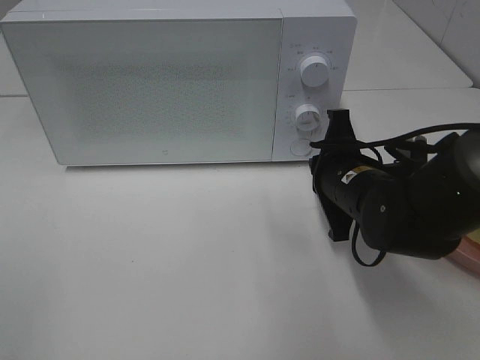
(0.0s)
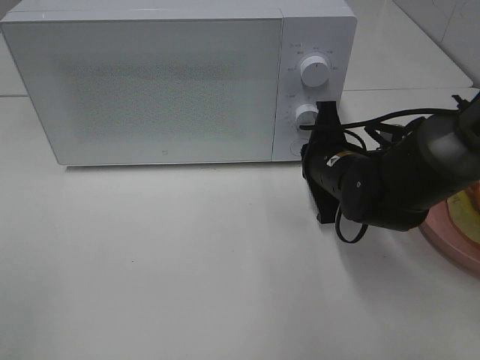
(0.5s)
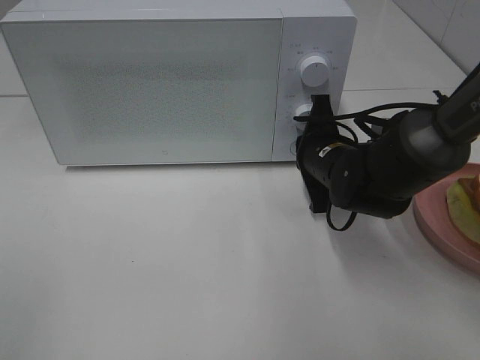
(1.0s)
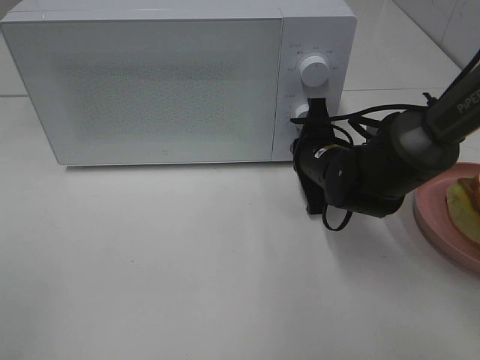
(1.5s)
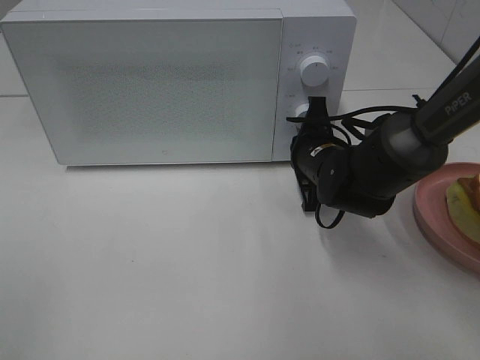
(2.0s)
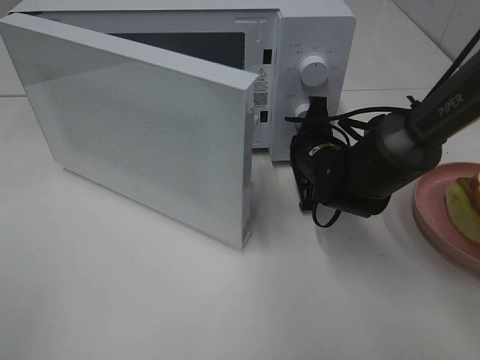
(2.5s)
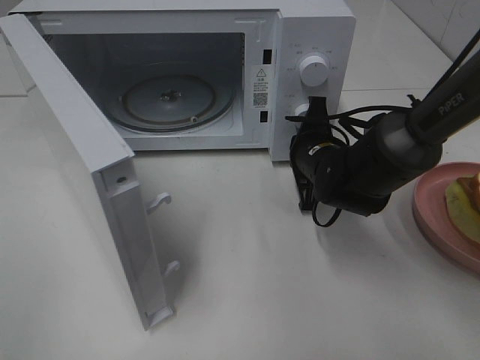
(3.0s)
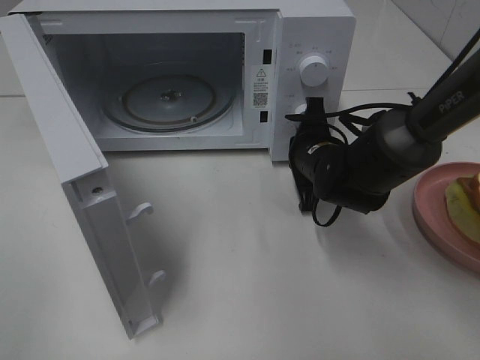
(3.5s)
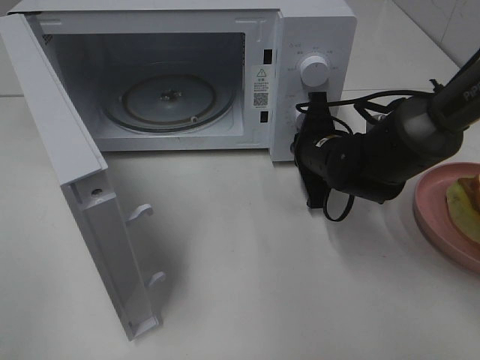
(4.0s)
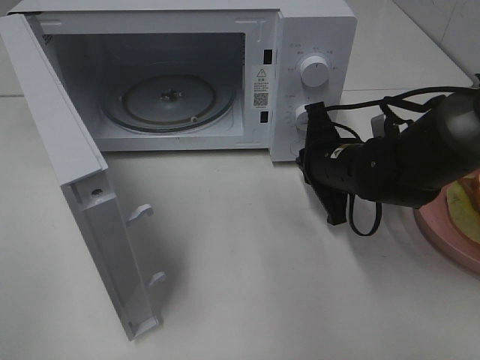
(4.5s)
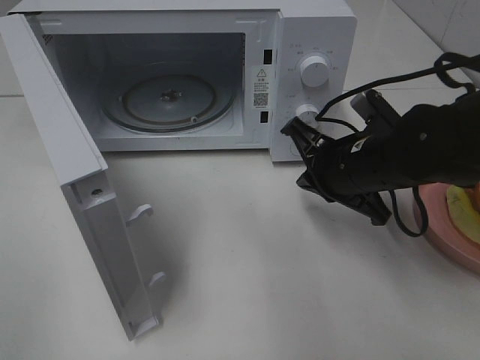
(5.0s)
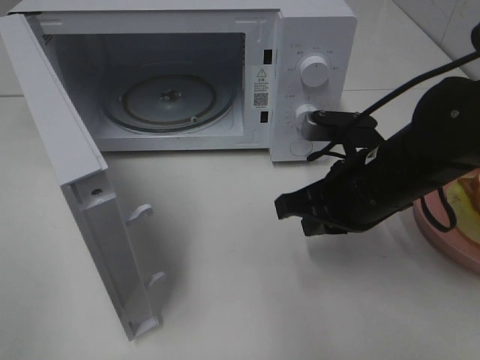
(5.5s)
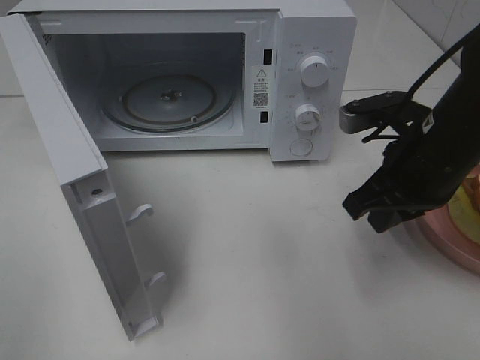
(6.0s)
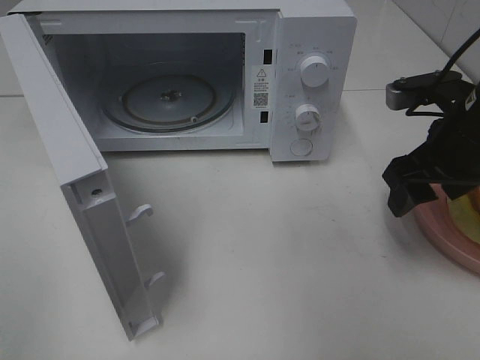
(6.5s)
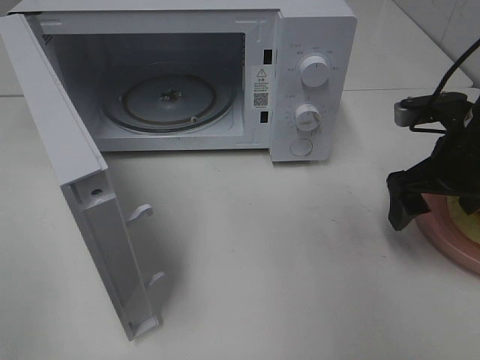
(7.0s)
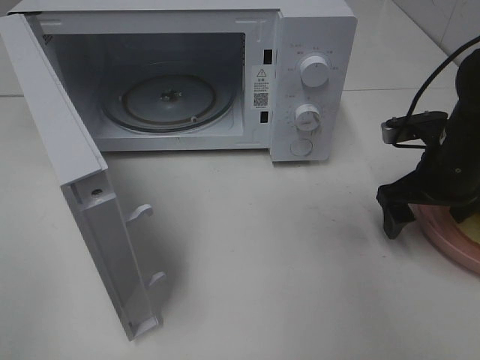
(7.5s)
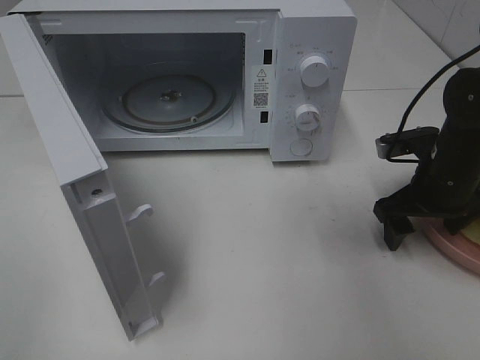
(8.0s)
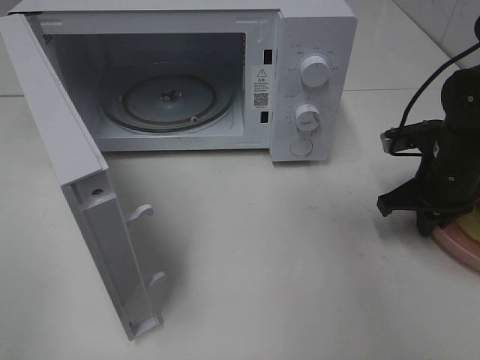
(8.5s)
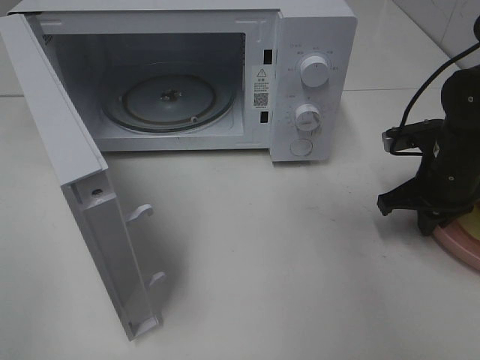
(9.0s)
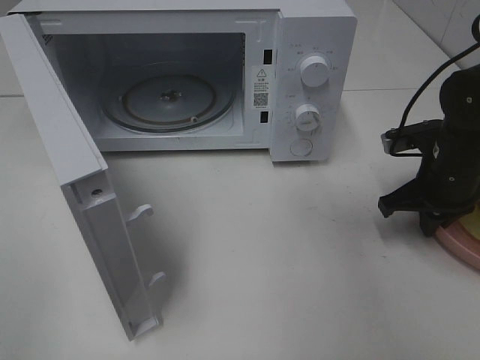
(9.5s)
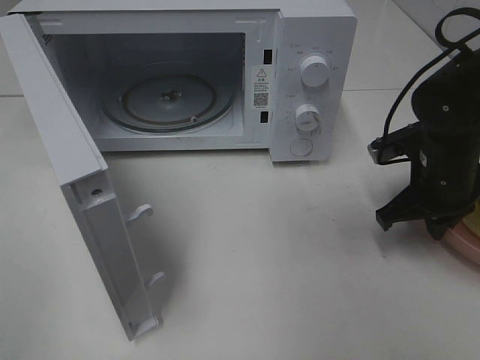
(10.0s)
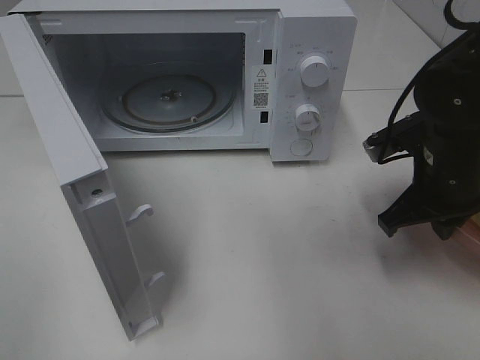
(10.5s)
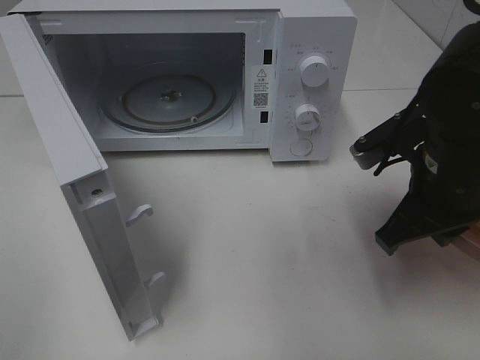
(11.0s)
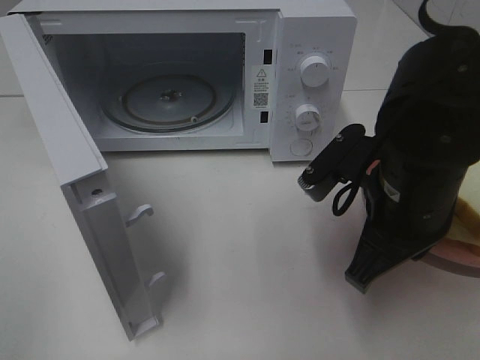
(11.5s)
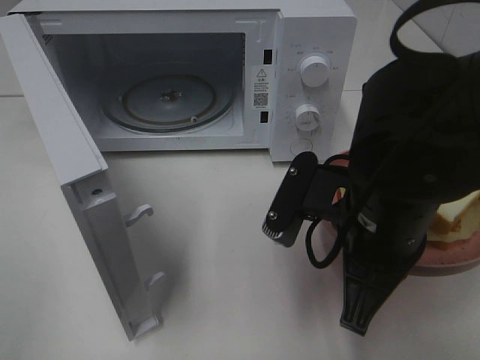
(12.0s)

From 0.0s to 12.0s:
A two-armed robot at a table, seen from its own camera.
Task of the whole recording: Heat Sandwich.
Step, from 0.0s to 4.0s: Right hand: press the switch.
Step, from 4.5s to 8.5s: Right hand: grab the plate with the sandwich.
From 0.0s to 2.0s: The right gripper heads forward, covering some 5 cm.
From 4.0s to 6.0s: The right gripper goes about 15 cm backward, upward and to the right.
From 6.0s to 8.0s: The right gripper shifts approximately 10 cm downward, to the right and forward, and opens up.
From 8.0s to 10.0s: The right gripper closes.
From 10.0s to 12.0s: The right gripper goes roughly 20 cm to the left, backward and upward.

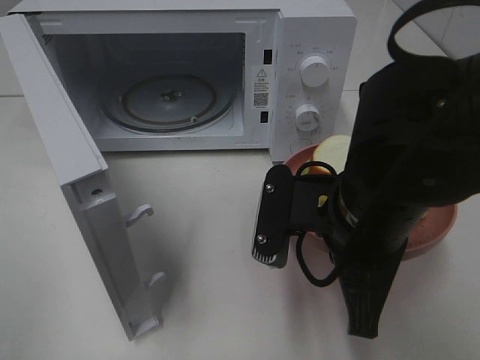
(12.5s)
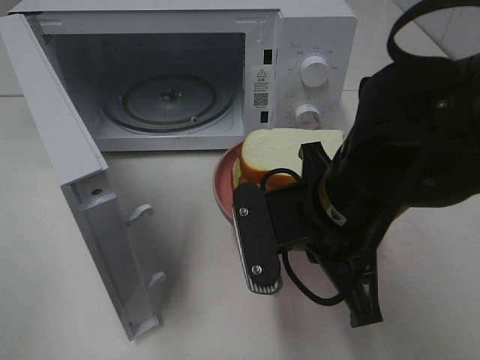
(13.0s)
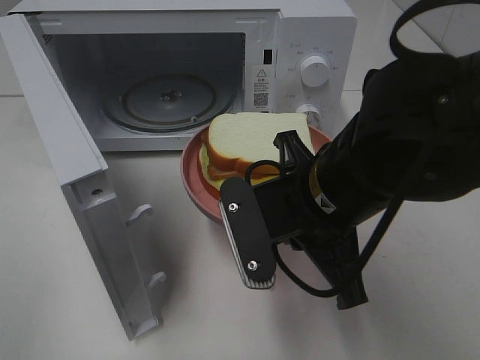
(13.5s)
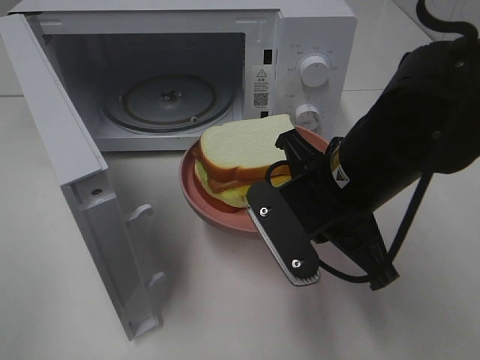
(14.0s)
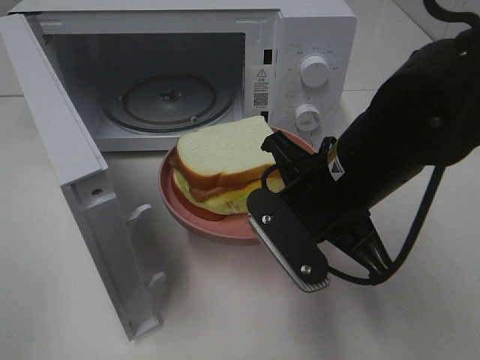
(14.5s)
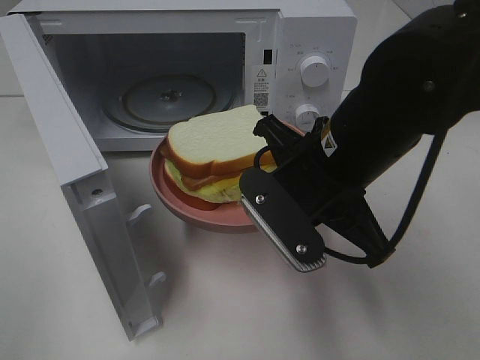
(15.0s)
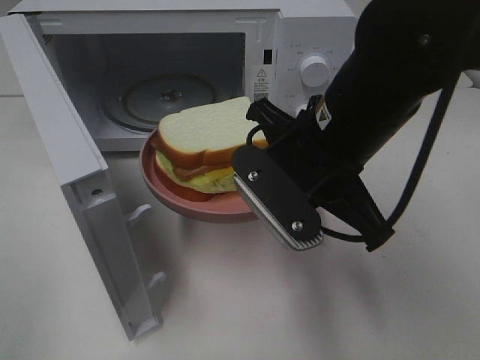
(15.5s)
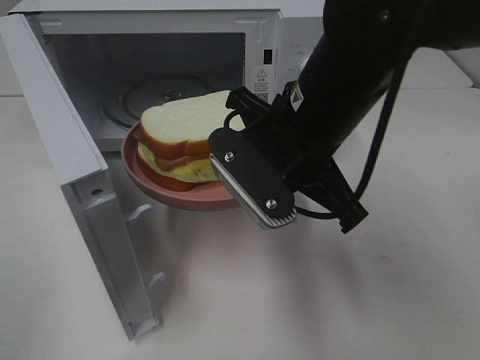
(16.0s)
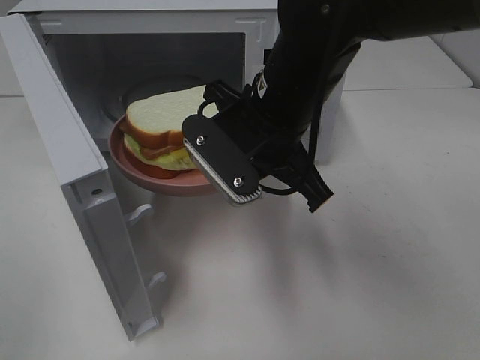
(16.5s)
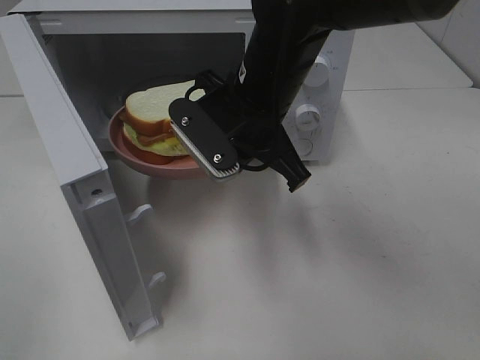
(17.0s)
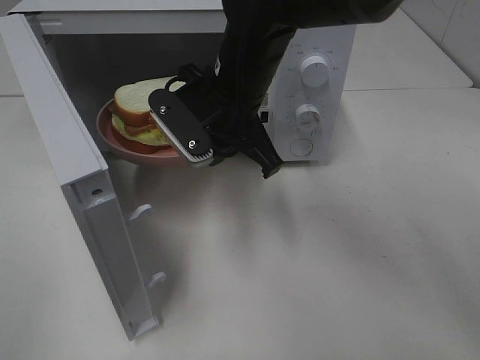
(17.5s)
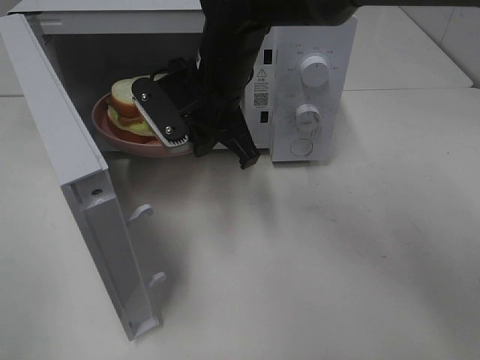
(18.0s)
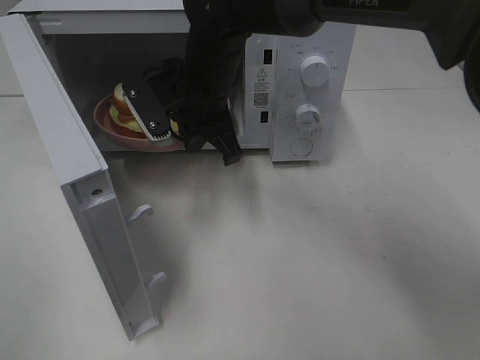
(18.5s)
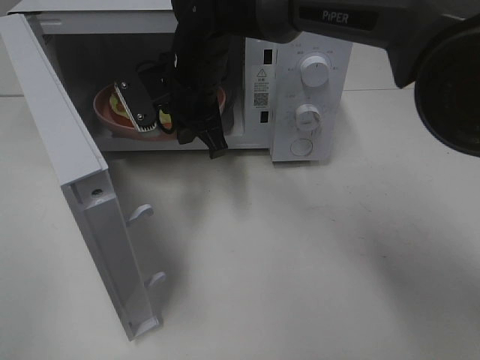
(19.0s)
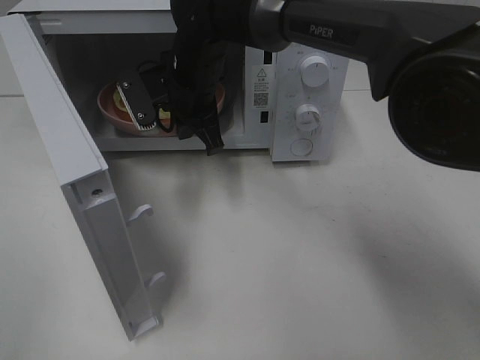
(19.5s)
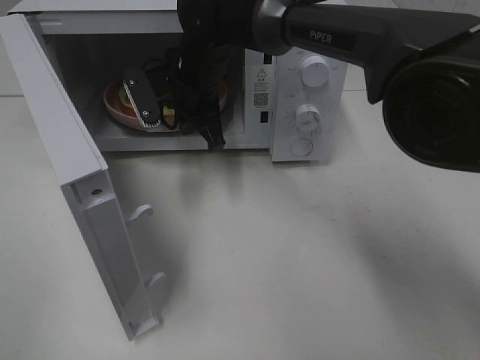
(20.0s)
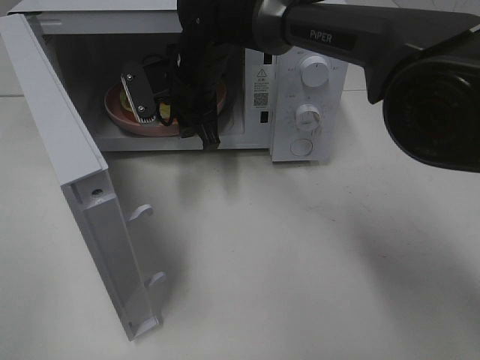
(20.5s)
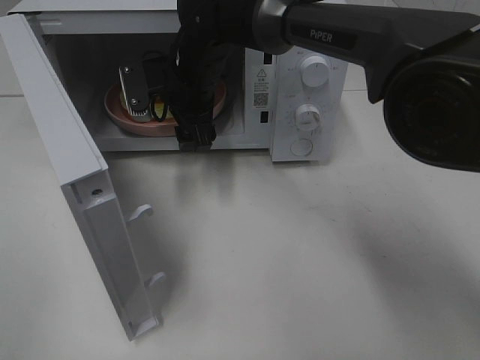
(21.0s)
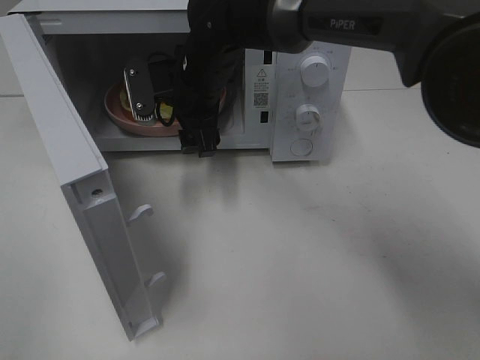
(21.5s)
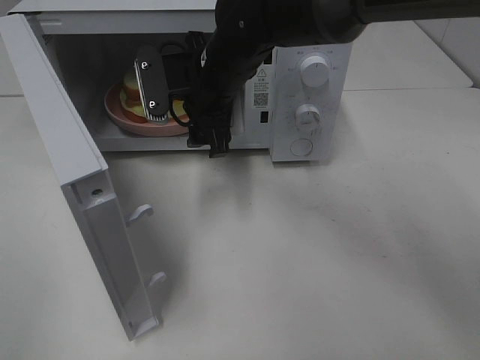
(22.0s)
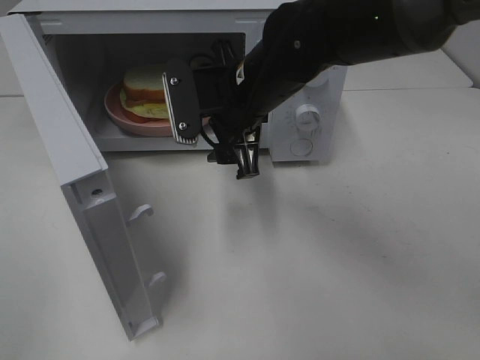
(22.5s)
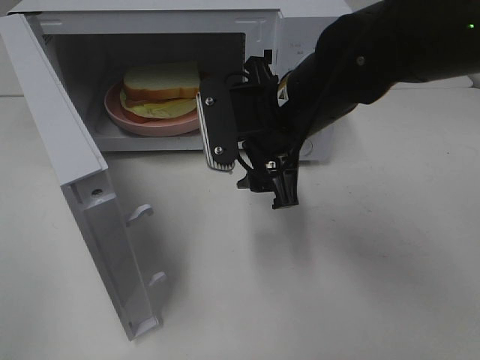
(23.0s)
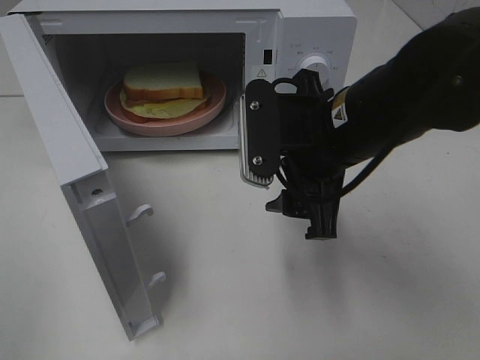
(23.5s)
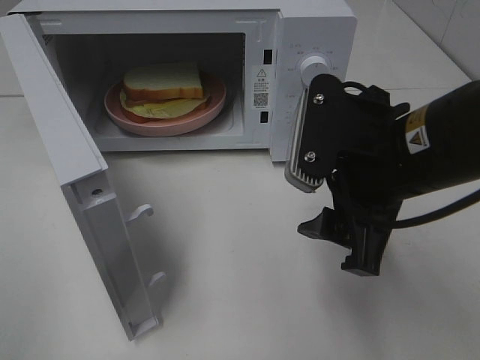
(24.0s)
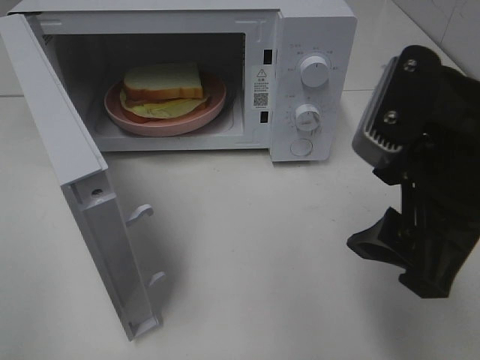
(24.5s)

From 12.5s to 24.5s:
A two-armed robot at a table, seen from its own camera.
Task of the whole recording: Heat Sandwich.
Step, from 12.5s to 21.5s: Right hand: place the plate in the microwave.
From 14.5s to 16.5s: The right gripper heads forward and to the left, covering some 10 cm.
From 16.5s to 18.5s: The right gripper moves forward and to the left, about 10 cm.
From 18.5s to 20.5s: The right gripper changes place by about 5 cm, and opens its fingers.
From 20.5s to 22.5s: The right gripper shifts about 10 cm backward and to the right, and opens its fingers.
From 22.5s to 24.5s: The right gripper travels backward and to the right by approximately 25 cm.

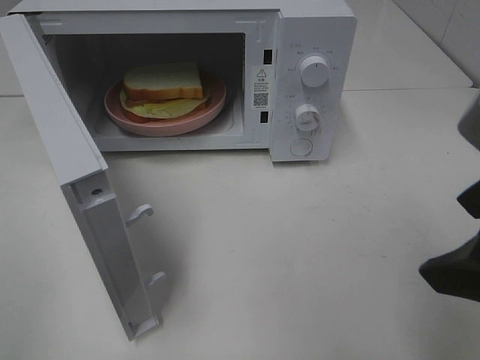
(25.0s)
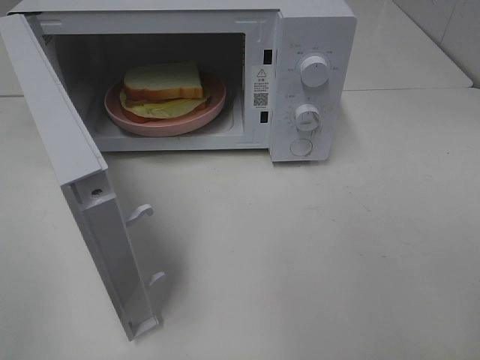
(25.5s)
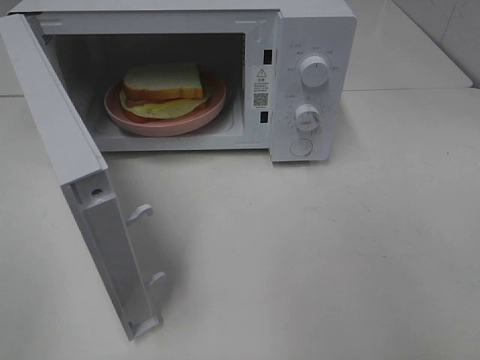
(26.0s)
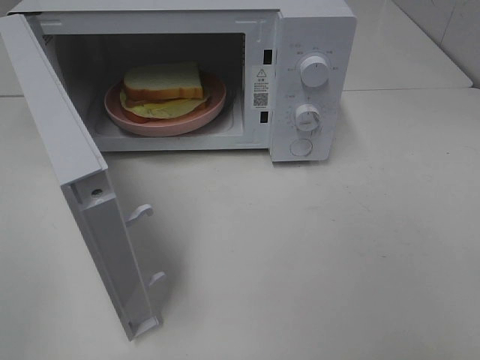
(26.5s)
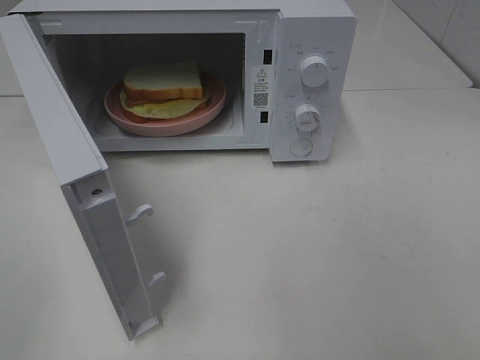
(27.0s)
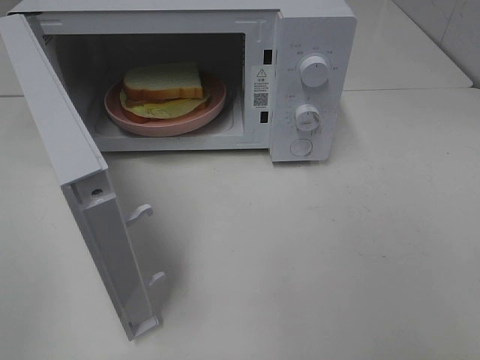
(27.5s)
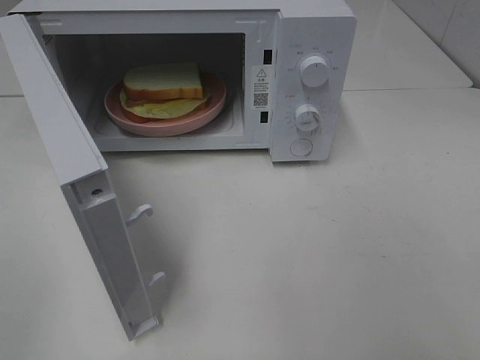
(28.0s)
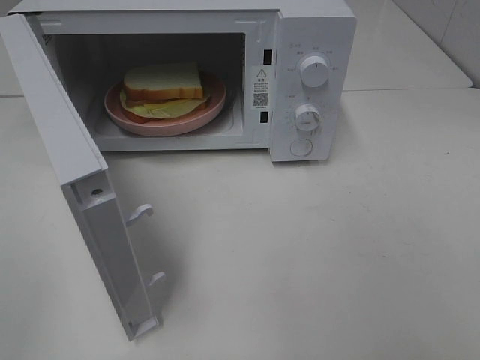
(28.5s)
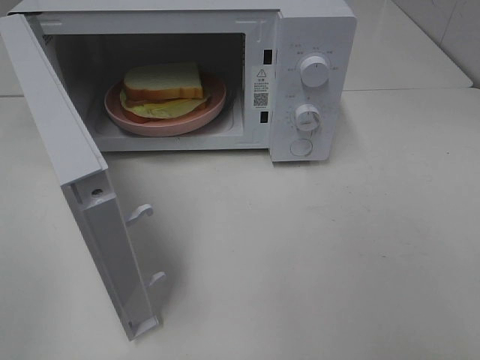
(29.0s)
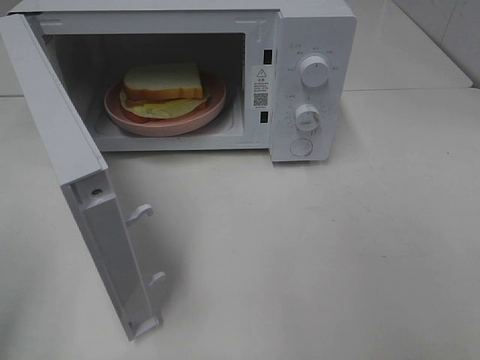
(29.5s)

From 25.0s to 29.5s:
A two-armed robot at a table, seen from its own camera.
Task of the whole recording: Heat Sandwich.
From 25.0s to 27.0s: The right gripper shifts roughly 15 cm backward and to the right.
